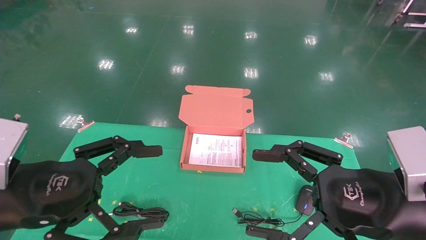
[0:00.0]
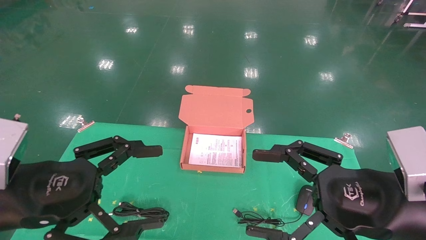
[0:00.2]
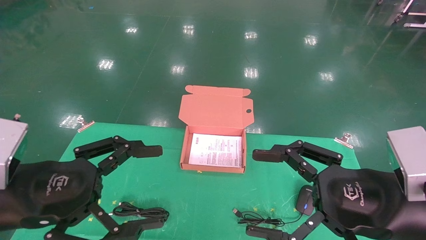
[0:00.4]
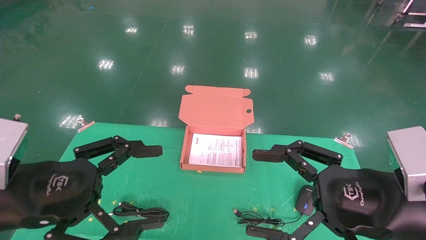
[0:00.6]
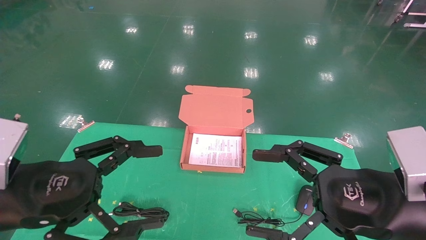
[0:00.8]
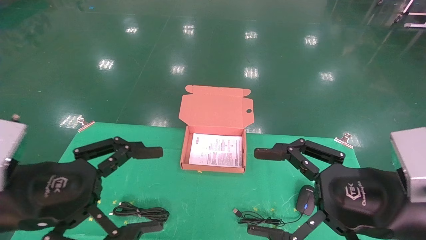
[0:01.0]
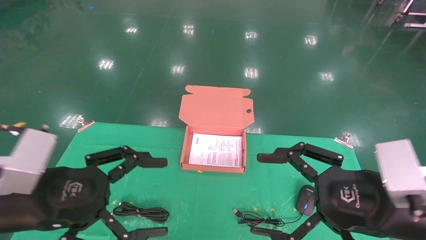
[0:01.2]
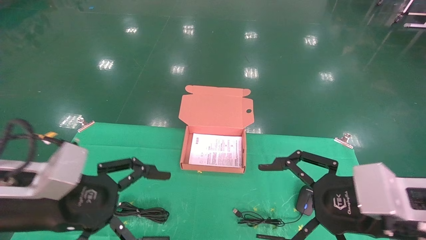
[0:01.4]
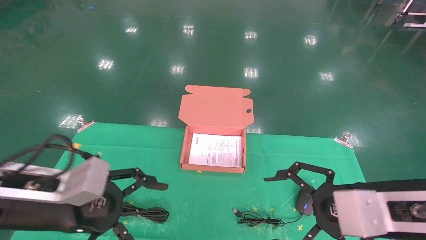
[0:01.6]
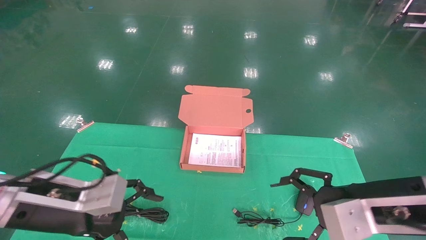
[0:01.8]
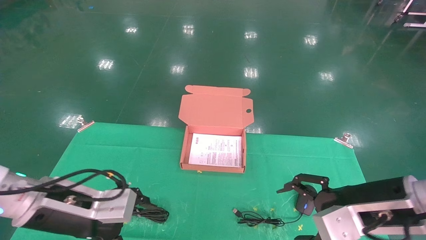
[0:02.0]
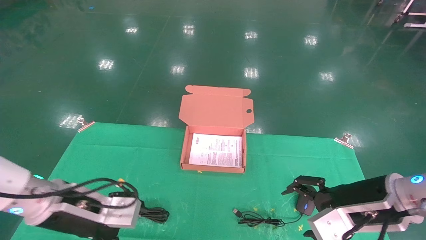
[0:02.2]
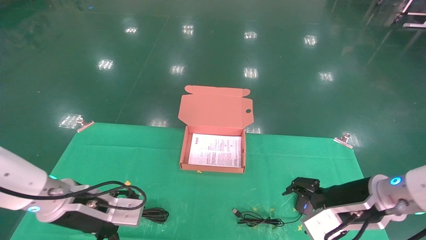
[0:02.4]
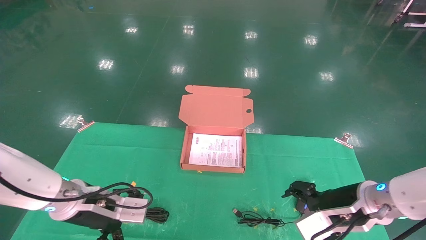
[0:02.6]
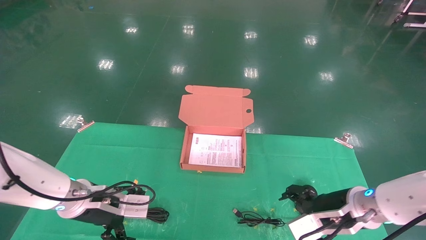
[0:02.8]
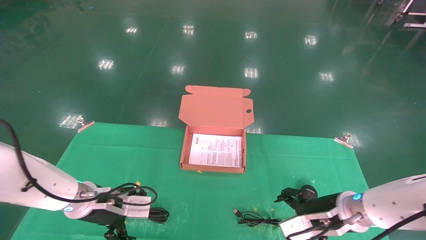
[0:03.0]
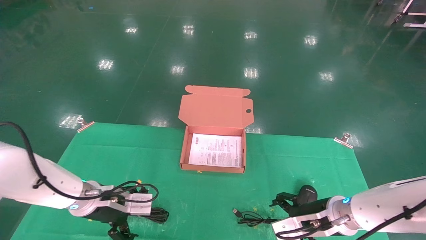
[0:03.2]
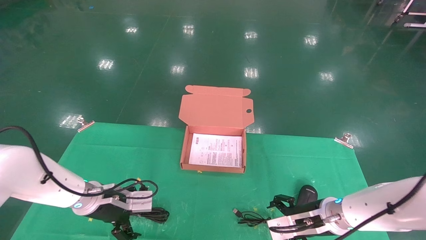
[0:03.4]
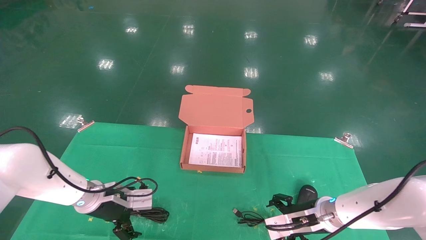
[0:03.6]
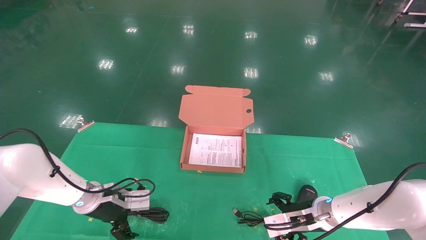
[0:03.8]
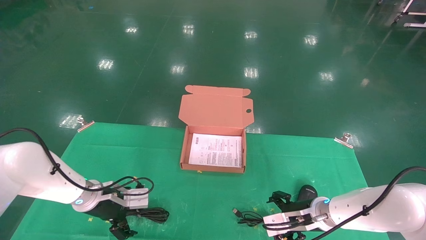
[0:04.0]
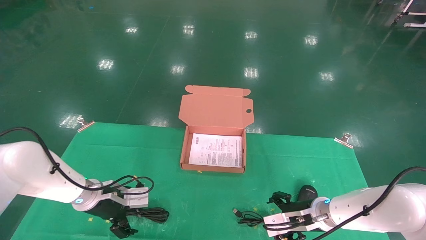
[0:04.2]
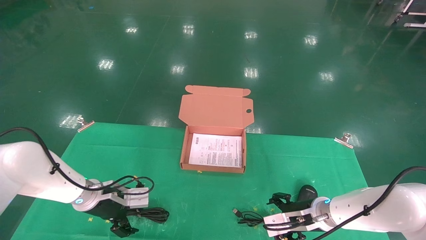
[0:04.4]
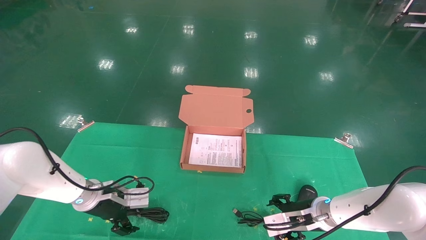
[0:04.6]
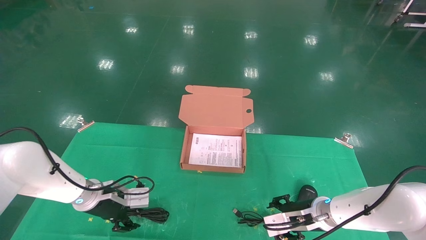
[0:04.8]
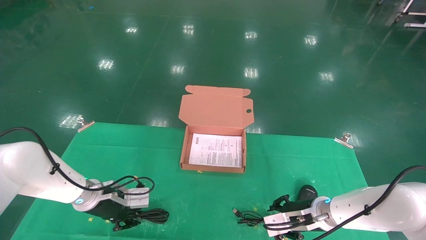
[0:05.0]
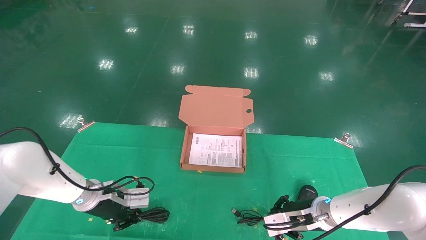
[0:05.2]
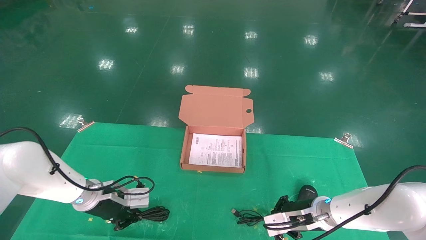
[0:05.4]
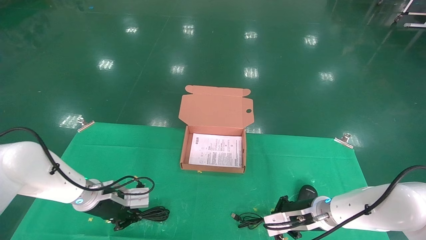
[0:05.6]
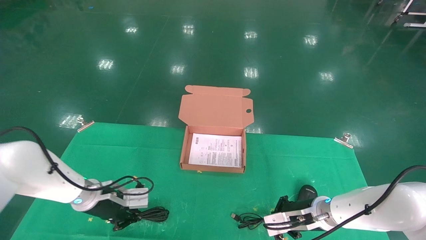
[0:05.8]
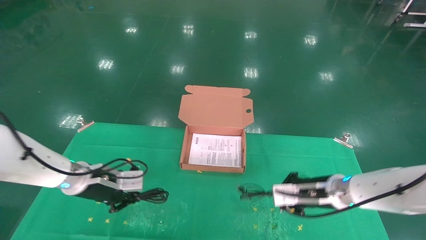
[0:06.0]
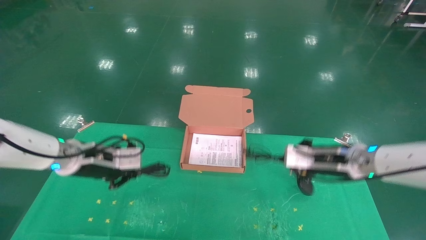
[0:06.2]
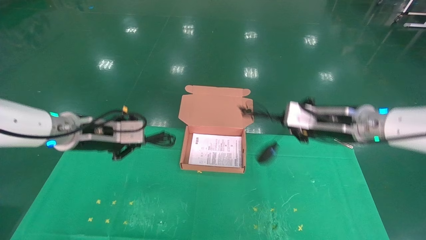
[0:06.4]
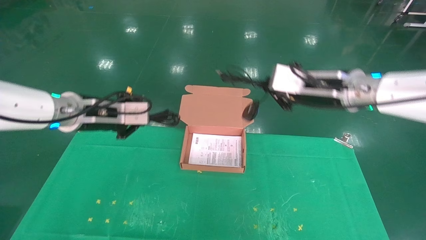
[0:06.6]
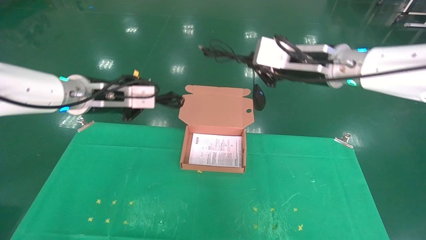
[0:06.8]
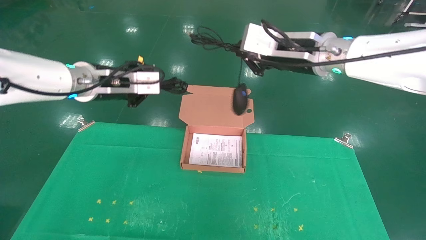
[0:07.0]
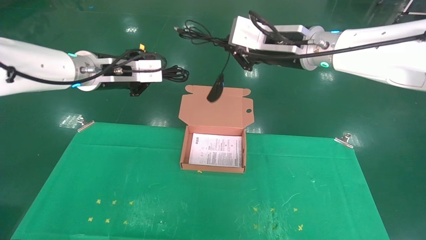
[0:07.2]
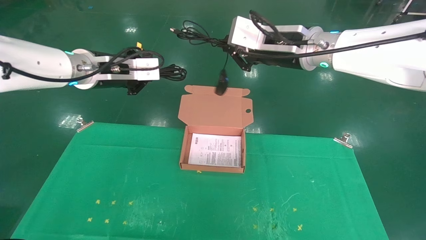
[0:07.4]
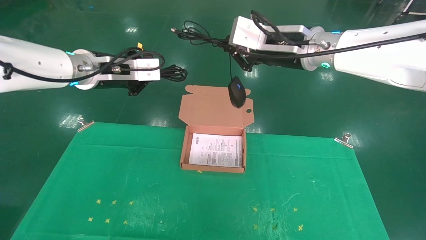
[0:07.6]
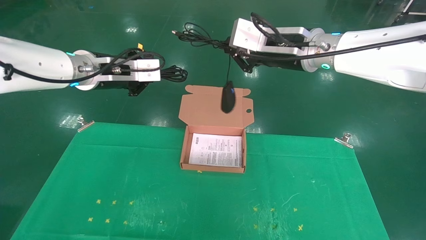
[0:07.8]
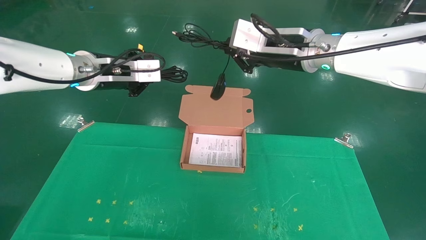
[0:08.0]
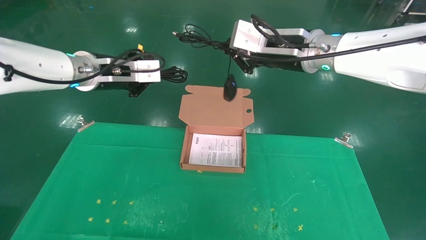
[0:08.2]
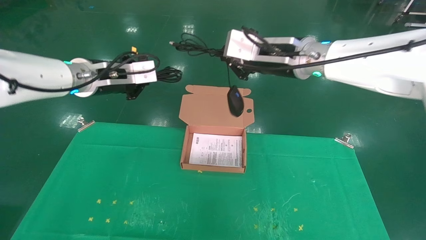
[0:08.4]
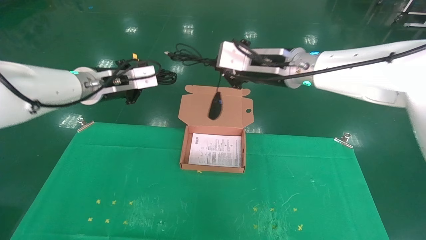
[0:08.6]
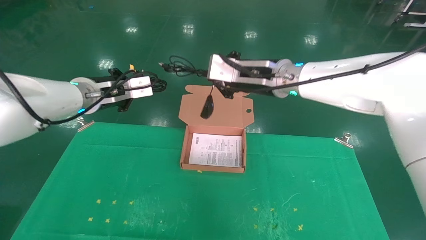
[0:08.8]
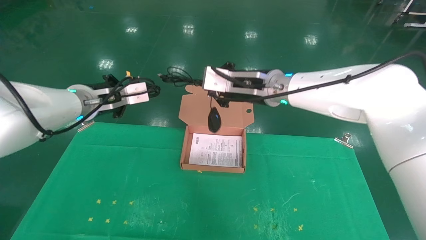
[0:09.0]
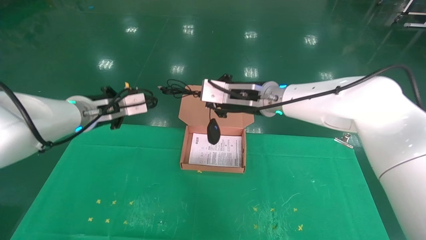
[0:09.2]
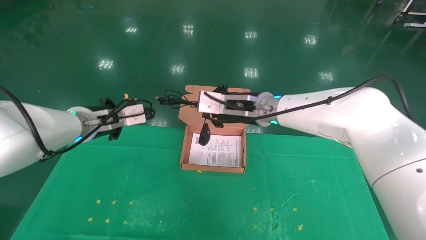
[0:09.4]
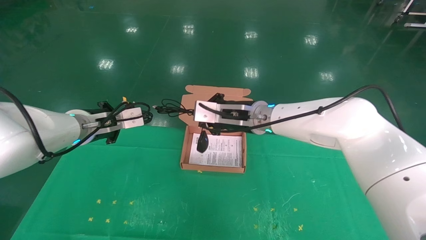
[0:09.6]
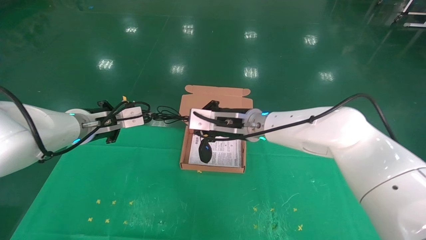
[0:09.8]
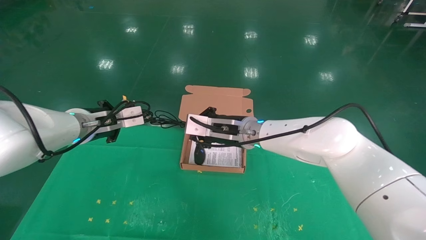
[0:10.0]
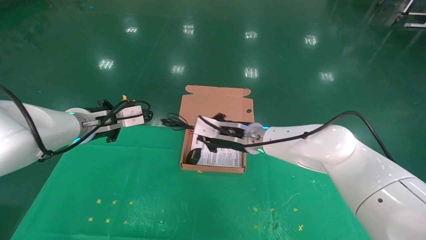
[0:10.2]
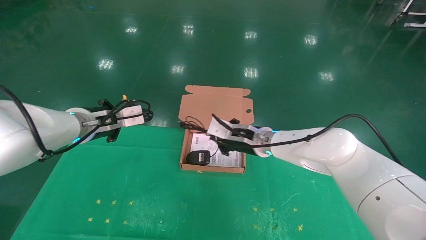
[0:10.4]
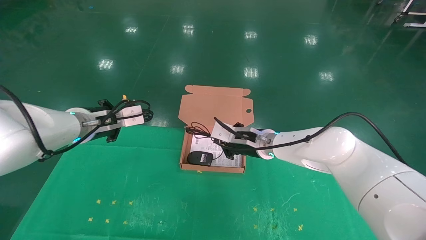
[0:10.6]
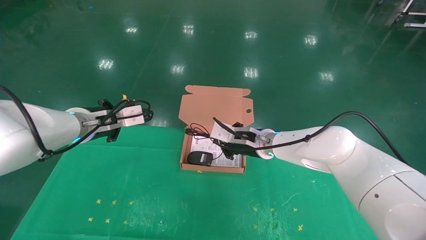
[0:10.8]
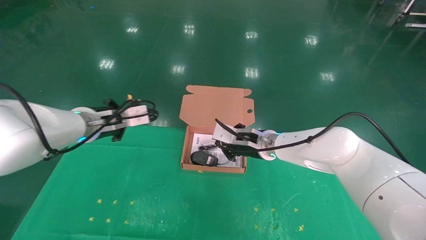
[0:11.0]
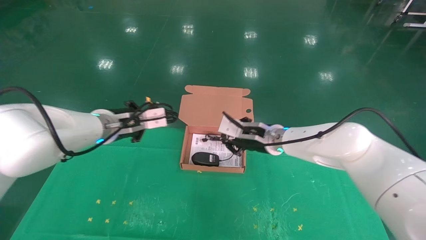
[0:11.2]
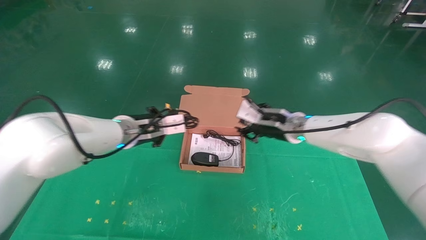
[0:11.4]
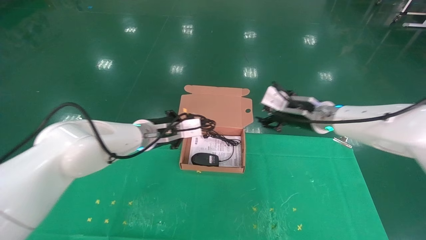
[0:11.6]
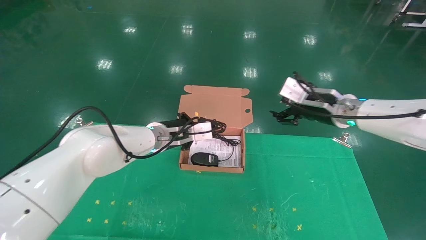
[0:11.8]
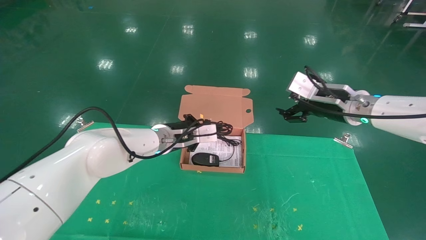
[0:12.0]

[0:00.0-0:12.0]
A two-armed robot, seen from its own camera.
Task of the whole recording: grasp data cable left put into box grasp mouse right put into box.
Step, 0:01.2 to 0:05.6: Grab and pick up both the mouse and power cord from the accessory packaging area at the same time.
0:01.6 to 0:03.0: The grippers both shift forward and downward by about 15 cm.
0:03.0 to 0:04.4: The left gripper is displaced forward by roughly 5 cm. Meanwhile the right gripper goes some 10 cm downward and forward.
0:04.4 to 0:06.0: Both grippers travel together upward, roughly 5 cm. The left gripper closes its fingers. Meanwhile the right gripper closes its fingers.
0:06.0 to 0:07.6: Both grippers travel together upward, some 25 cm.
0:07.6 to 0:09.0: Both grippers move downward, some 5 cm.
0:09.0 to 0:10.4: The right gripper shifts roughly 15 cm downward.
0:10.4 to 0:12.0: The left gripper moves to the right, forward and downward, roughly 20 cm; the right gripper heads to the right and upward, covering roughly 20 cm, and opens its fingers.

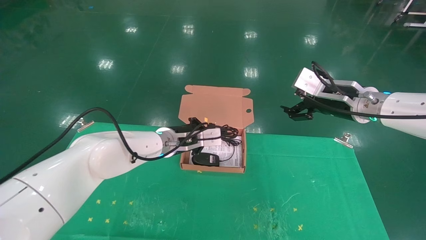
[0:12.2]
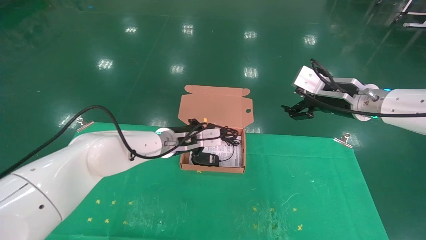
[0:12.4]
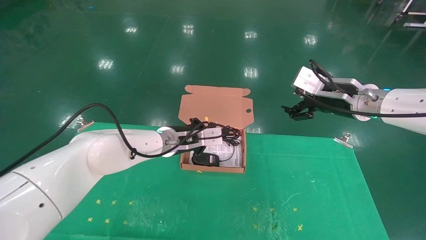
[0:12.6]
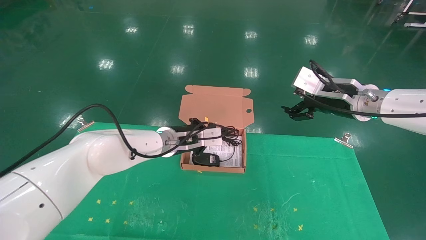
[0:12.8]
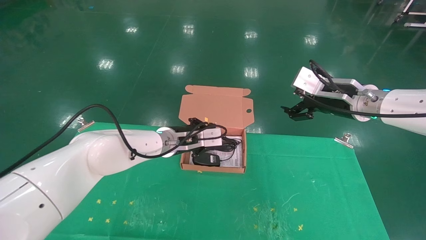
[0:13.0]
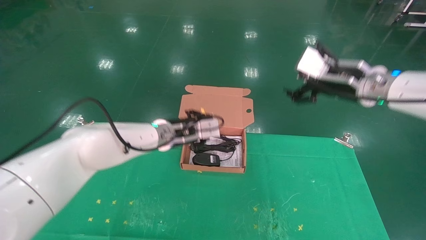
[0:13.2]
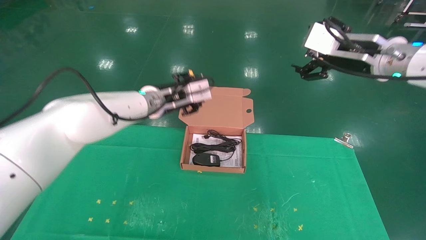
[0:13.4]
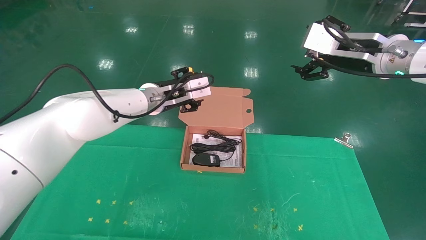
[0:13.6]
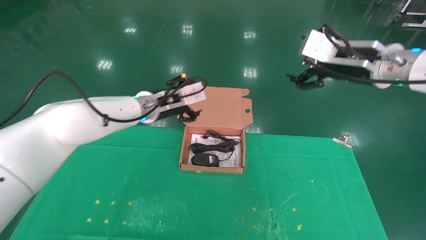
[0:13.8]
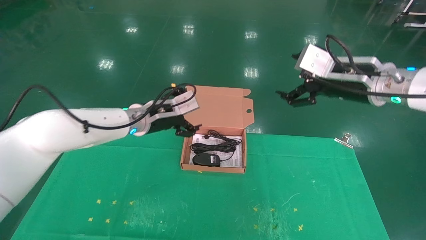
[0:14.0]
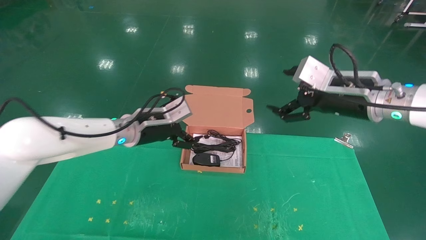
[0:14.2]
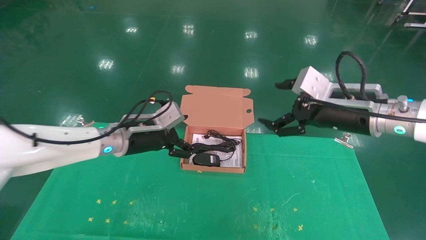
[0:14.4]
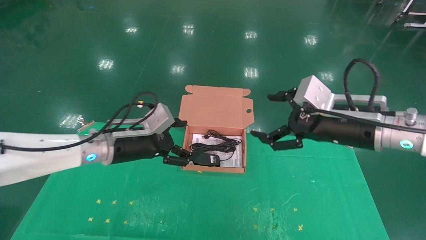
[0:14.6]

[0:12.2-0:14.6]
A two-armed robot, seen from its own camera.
Task of the whole recording: grasp data cable left put into box grasp mouse right put into box.
0:12.2 to 0:13.4: The grippers both shift upward by about 10 cm. The left gripper opens up.
0:13.4 to 0:14.6: The left gripper shifts approximately 10 cm to the left and backward, and opens its fingers; the right gripper moves downward and backward, roughly 10 cm.

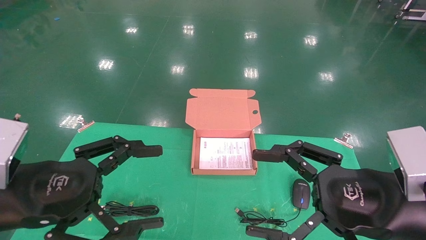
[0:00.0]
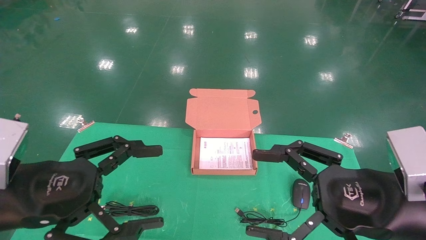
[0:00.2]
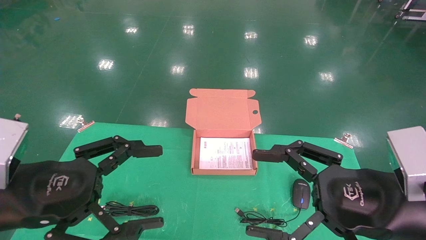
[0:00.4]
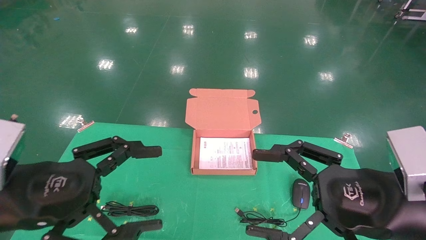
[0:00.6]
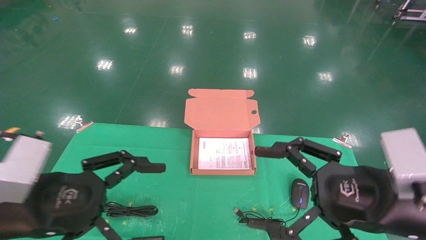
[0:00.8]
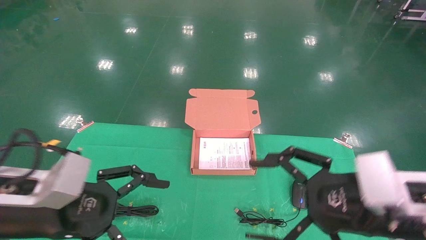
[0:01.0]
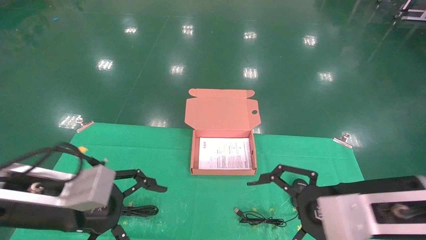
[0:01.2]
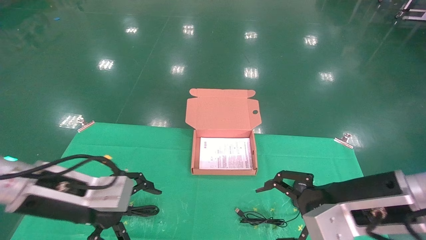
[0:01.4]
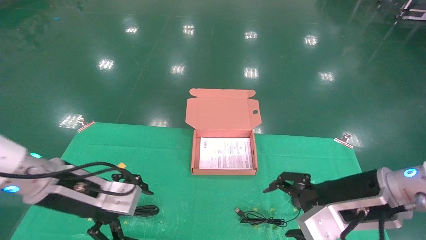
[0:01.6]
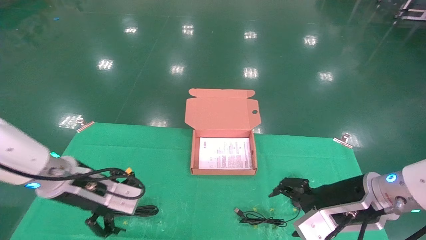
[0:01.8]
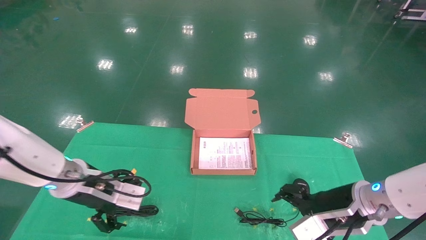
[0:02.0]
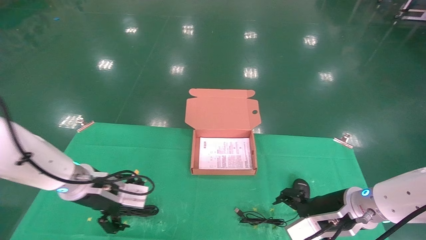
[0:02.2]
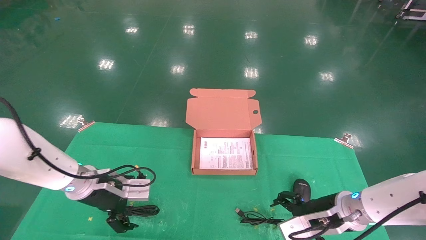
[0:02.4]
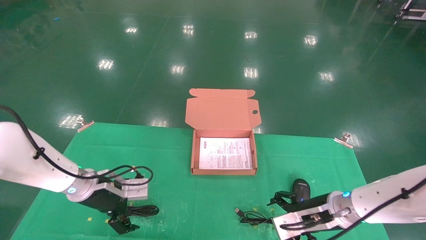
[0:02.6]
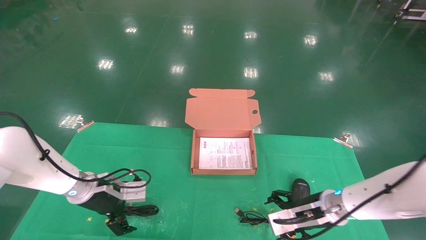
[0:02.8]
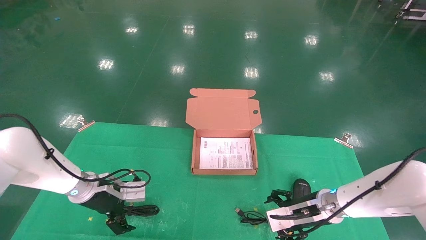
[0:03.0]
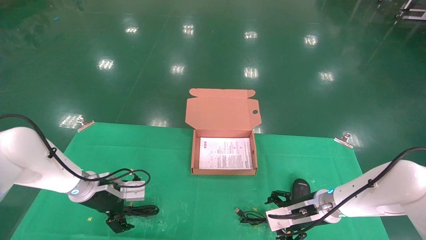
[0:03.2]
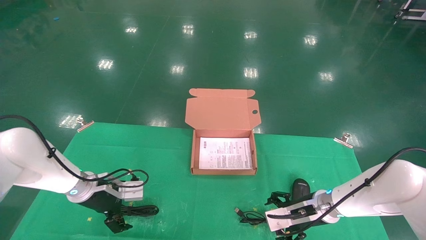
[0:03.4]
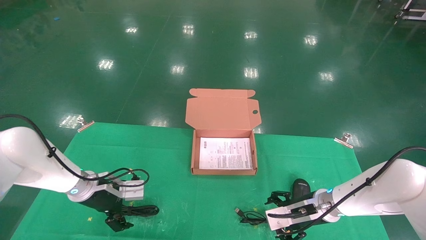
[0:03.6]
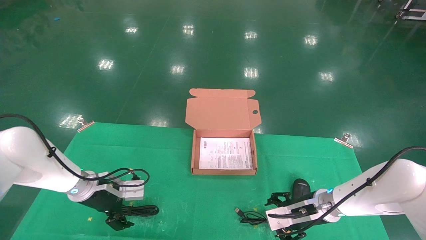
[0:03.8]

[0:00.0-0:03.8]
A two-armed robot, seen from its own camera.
Task of the whole recording: grasp data cable left put into box grasp mouse right put into box.
0:00.0 to 0:01.2: The left gripper is displaced forward by approximately 5 cm.
0:01.2 to 0:02.6: The grippers both shift forward and downward by approximately 20 cm.
0:02.6 to 0:03.8: The right gripper shifts by approximately 5 cm.
